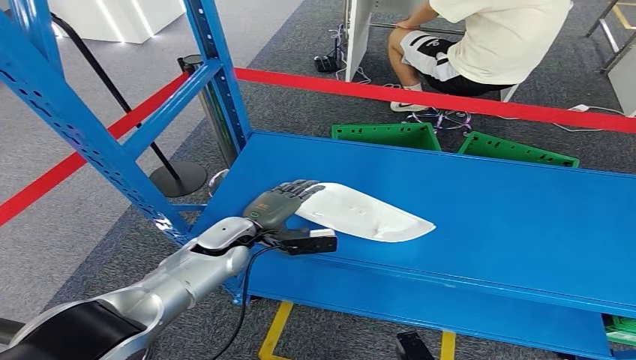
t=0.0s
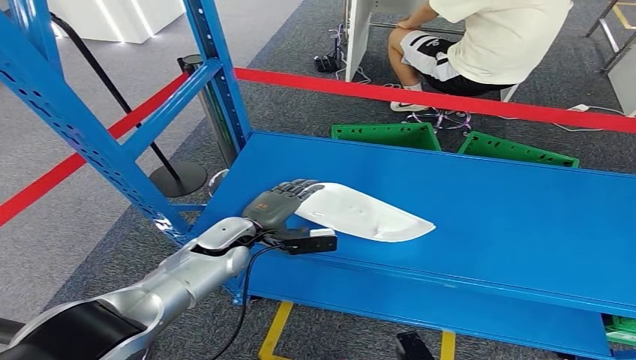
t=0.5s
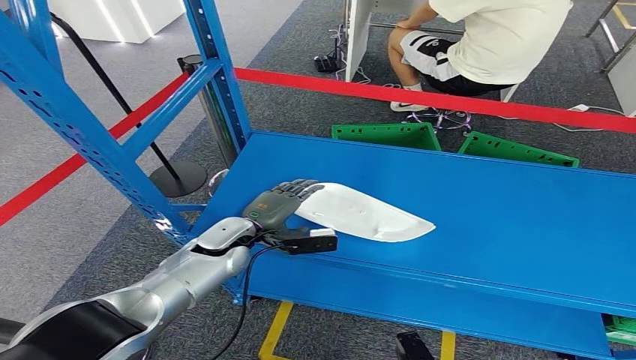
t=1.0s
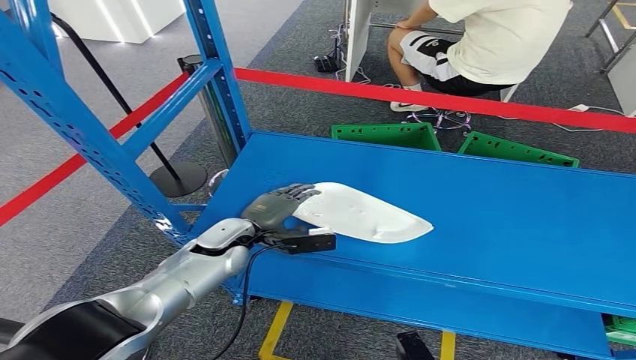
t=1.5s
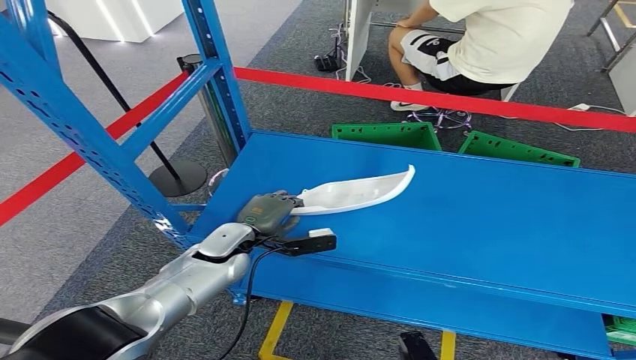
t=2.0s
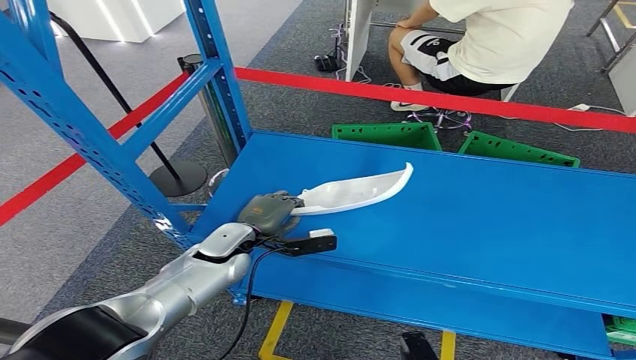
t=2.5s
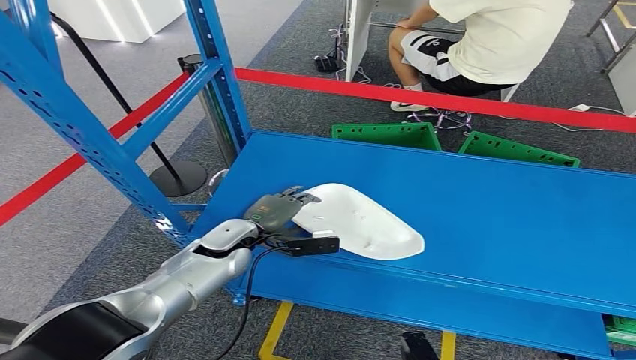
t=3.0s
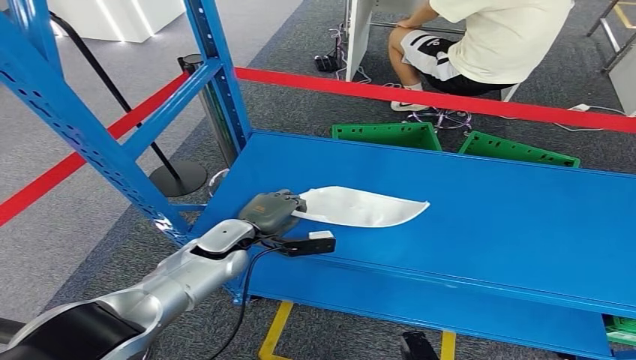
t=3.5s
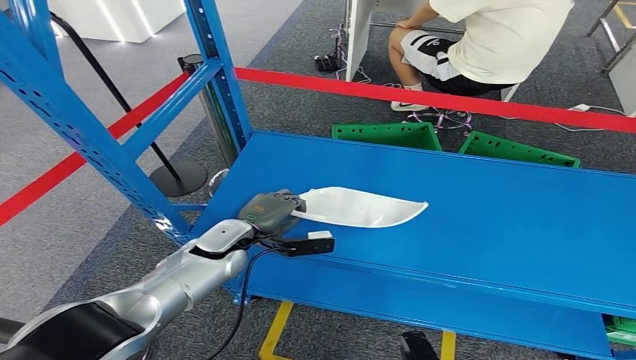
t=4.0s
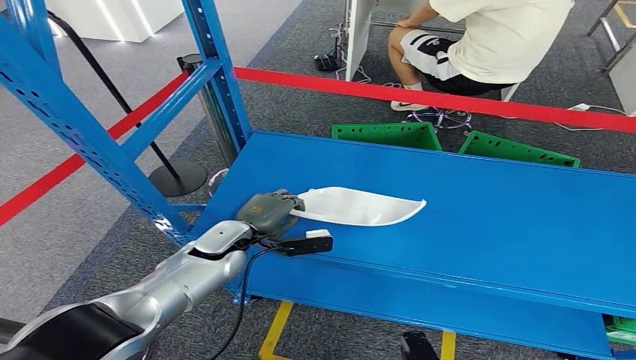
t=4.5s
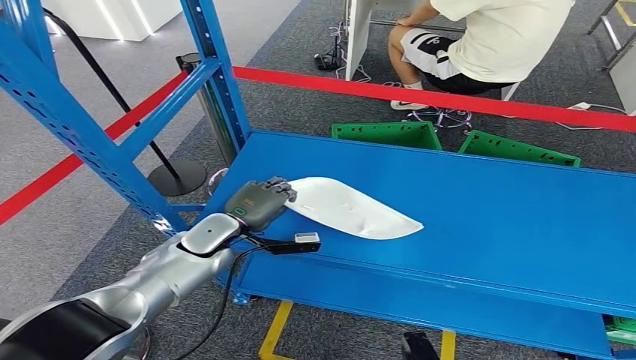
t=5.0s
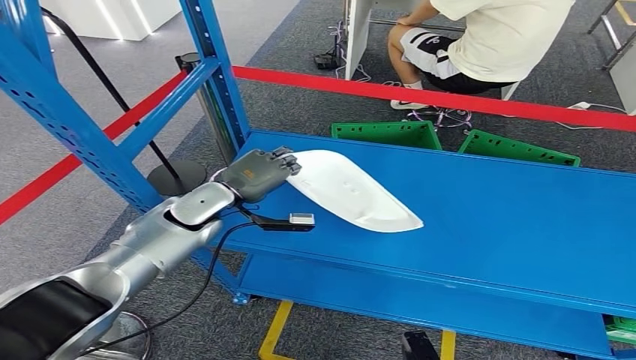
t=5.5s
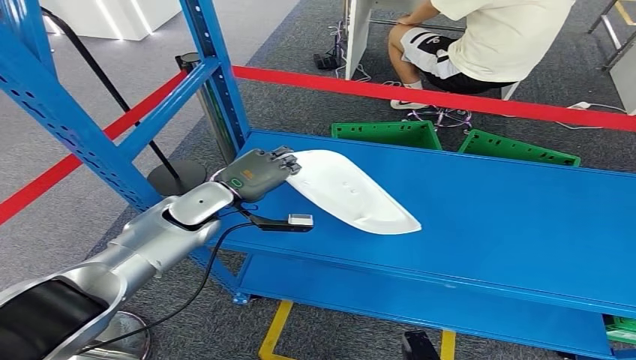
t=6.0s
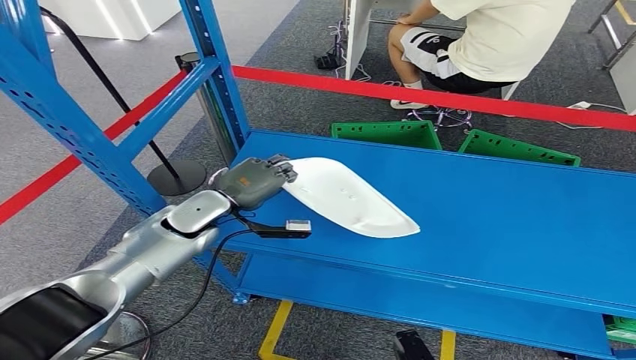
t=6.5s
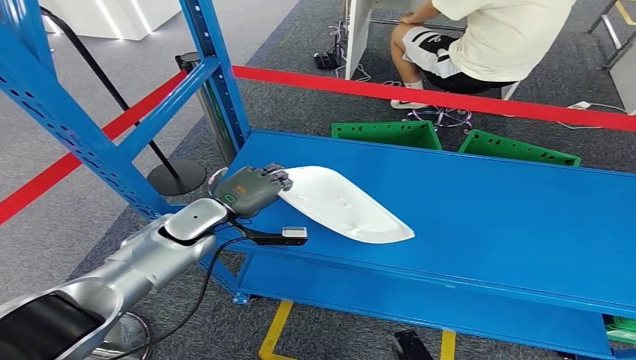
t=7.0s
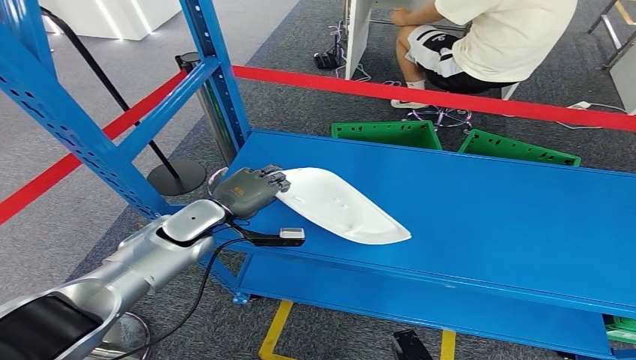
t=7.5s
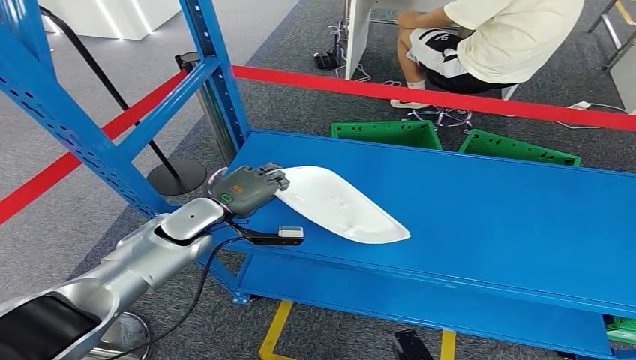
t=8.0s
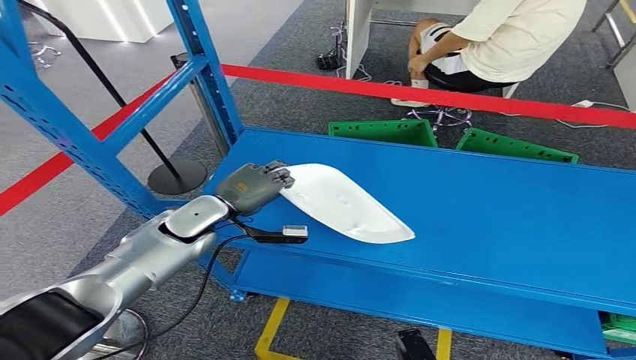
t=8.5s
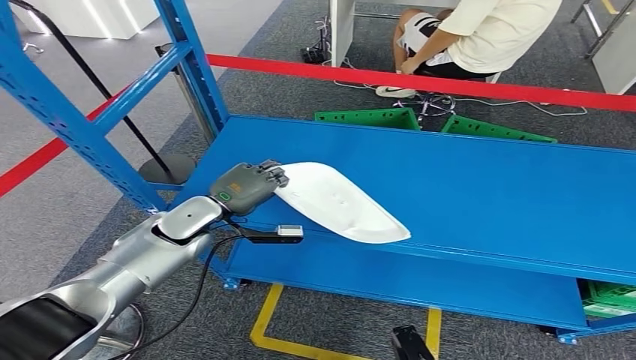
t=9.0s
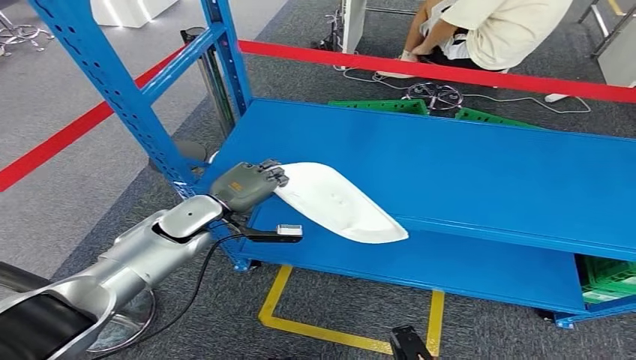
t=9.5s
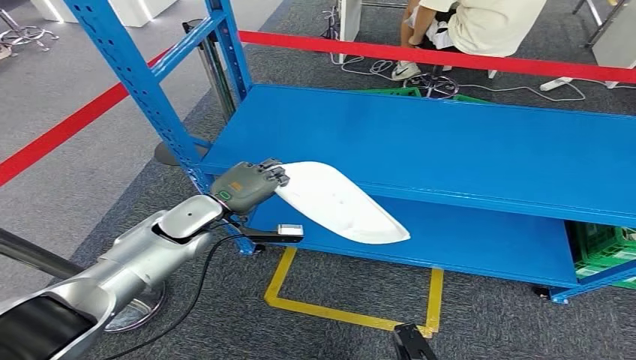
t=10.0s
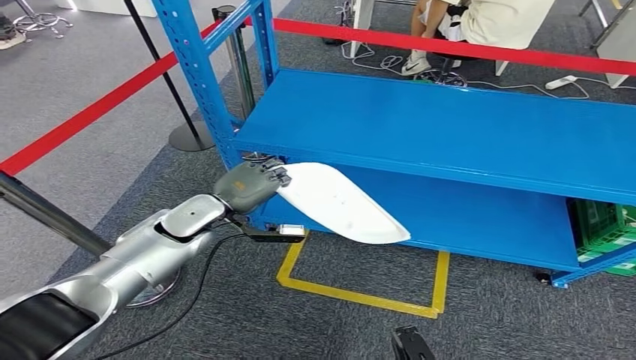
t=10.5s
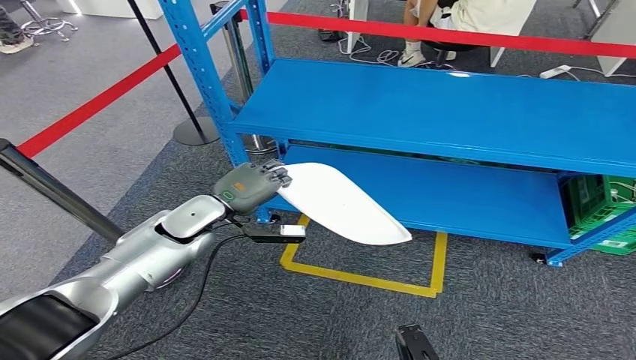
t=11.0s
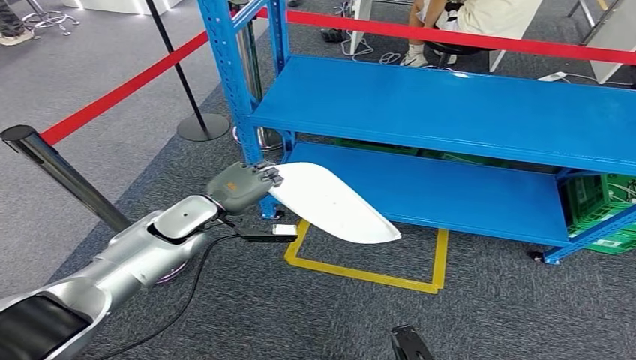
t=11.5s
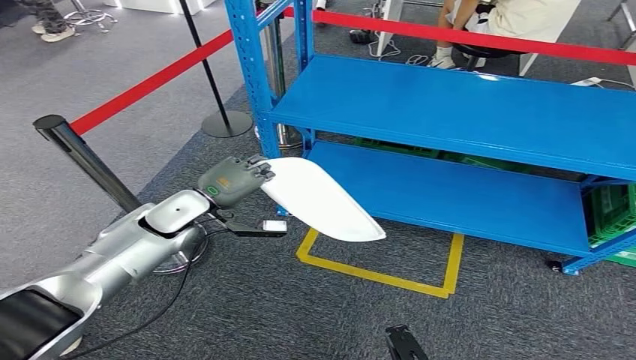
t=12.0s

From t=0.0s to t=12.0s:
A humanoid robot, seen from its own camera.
From t=0.0s to t=4.0s: The hands make only small movements.
From t=4.0s to t=6.0s: The left hand goes roughly 5 cm upward.
From t=6.0s to t=8.0s: There are only small adjustments of the hands.

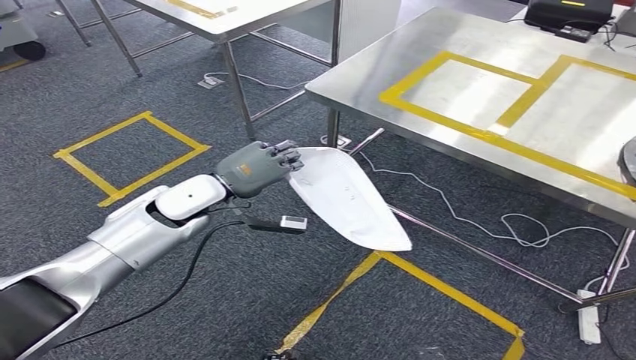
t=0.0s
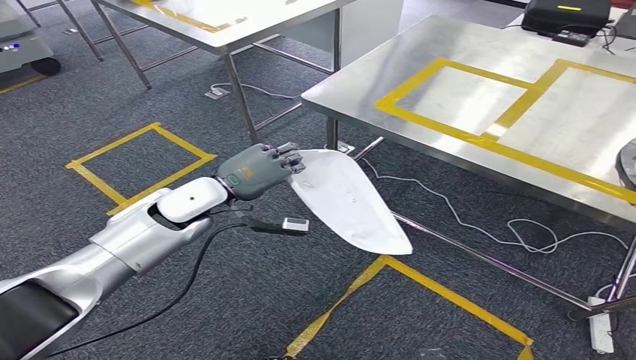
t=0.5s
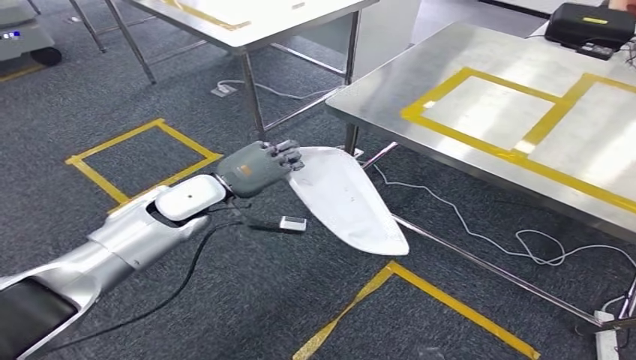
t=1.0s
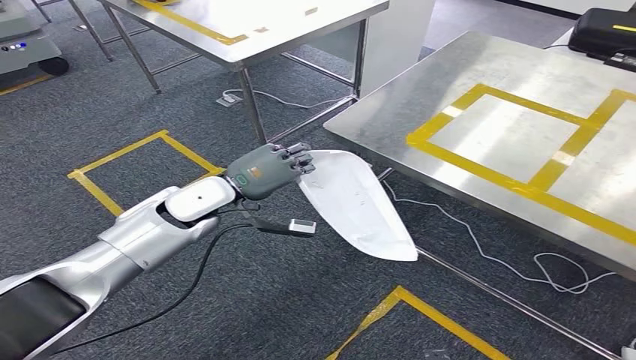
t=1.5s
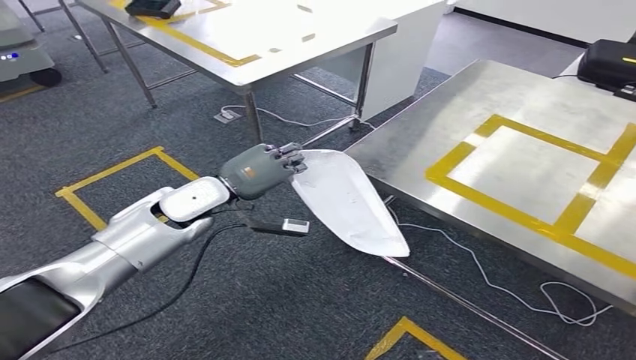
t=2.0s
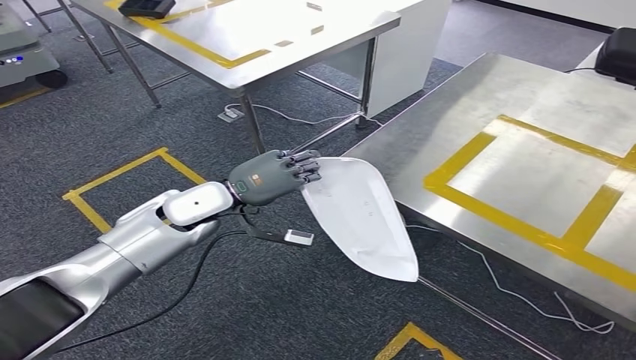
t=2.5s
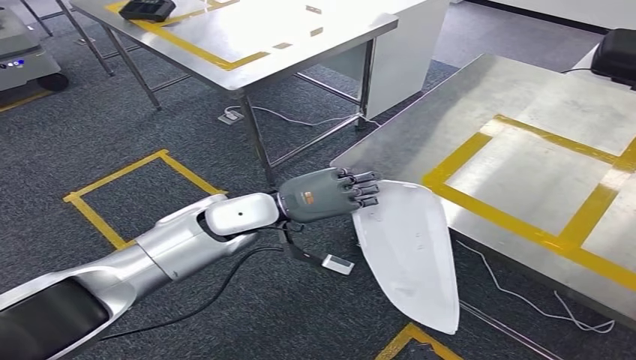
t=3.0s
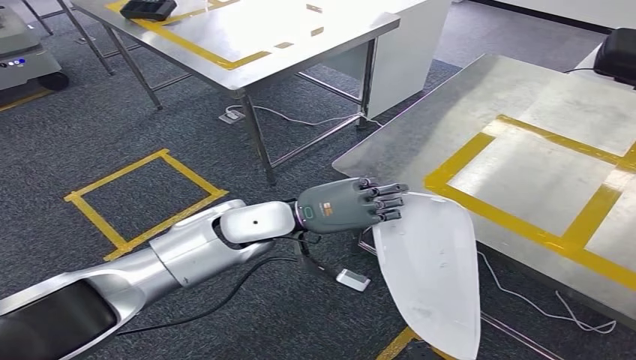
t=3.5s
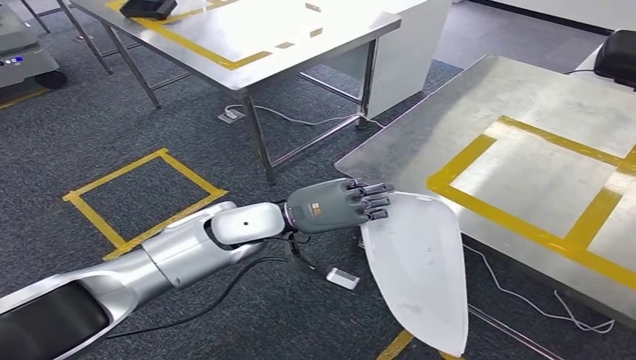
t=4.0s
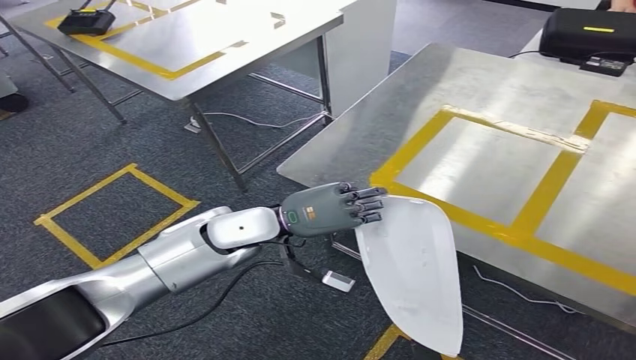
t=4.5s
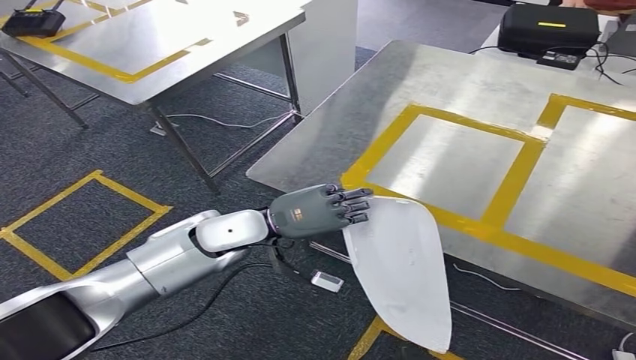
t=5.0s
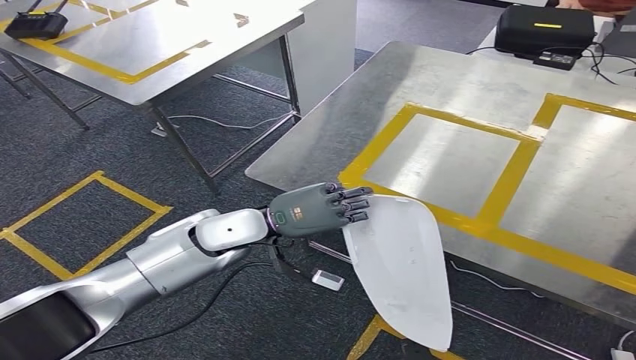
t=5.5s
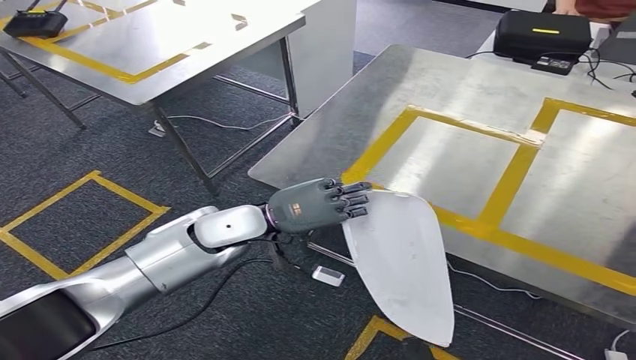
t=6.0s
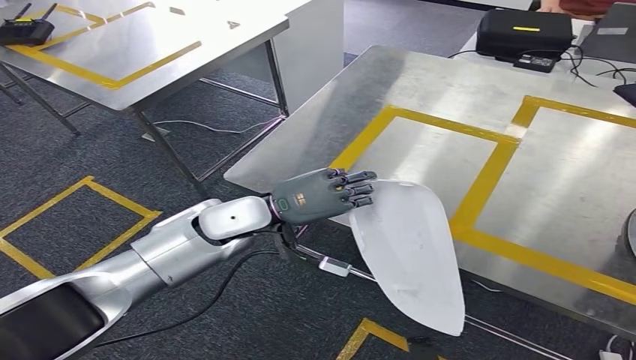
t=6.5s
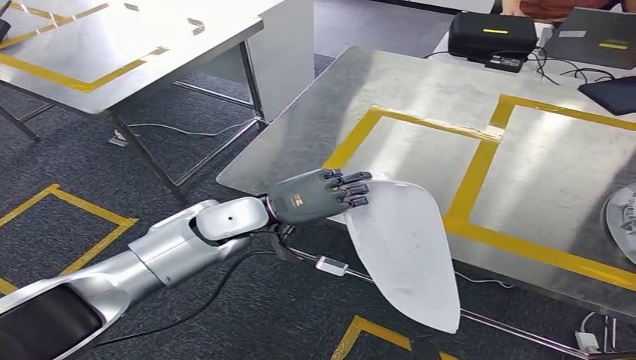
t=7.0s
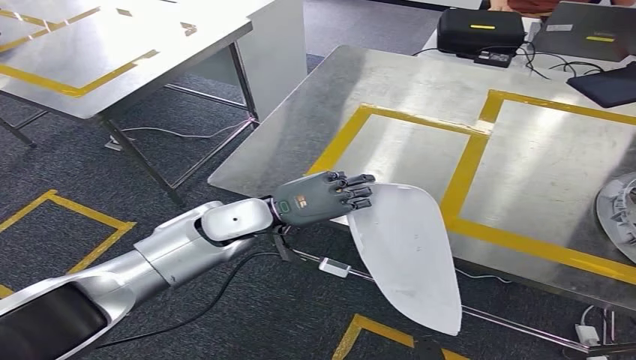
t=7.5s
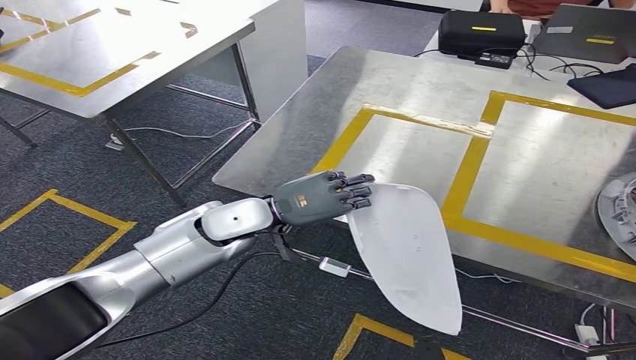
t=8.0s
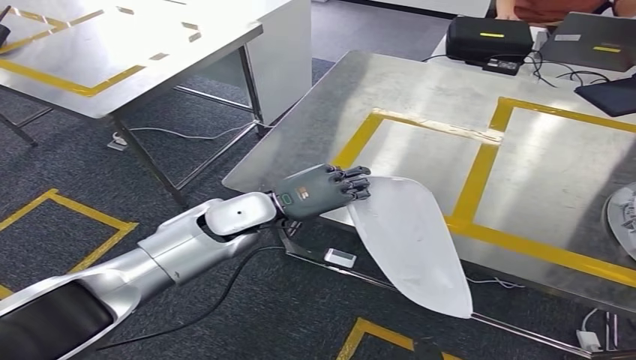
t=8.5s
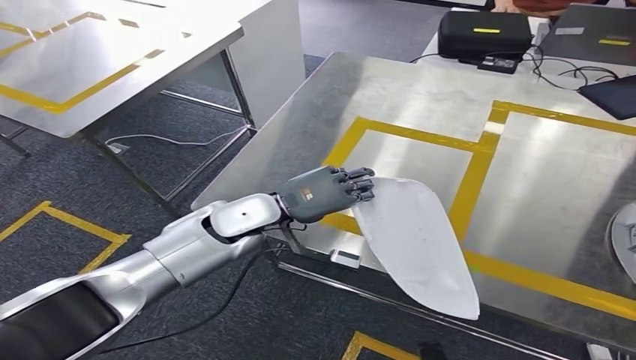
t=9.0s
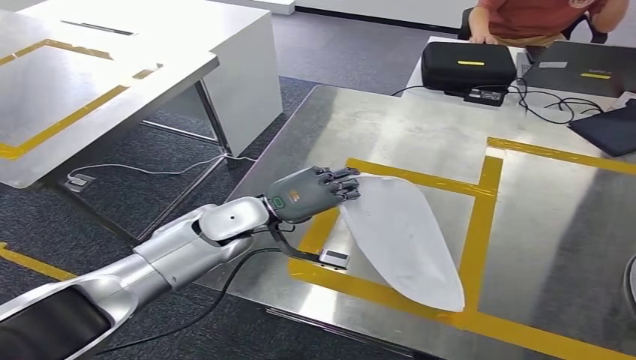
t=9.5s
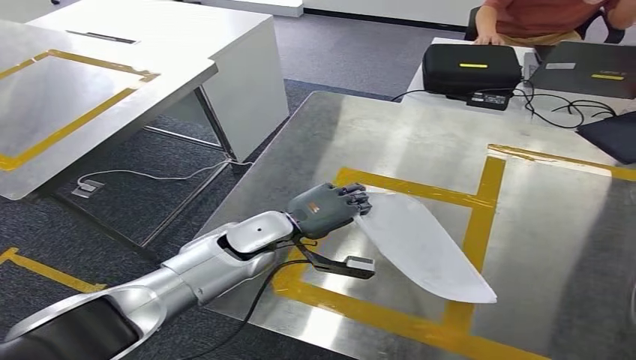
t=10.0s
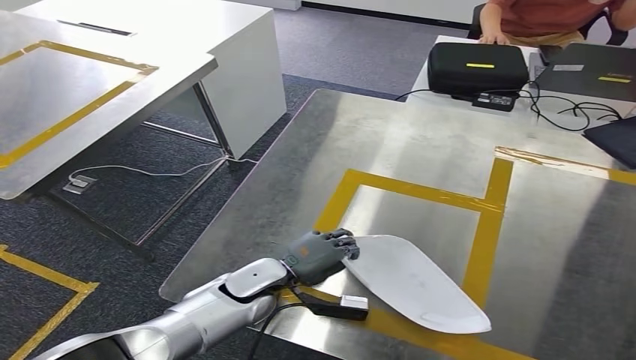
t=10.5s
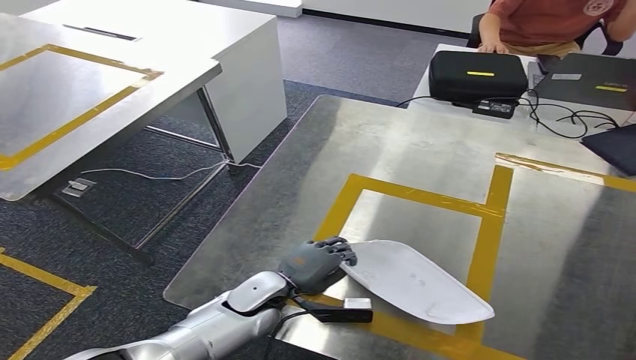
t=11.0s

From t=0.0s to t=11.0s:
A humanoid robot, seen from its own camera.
Step, from t=0.0s to t=4.5s: Move the small parts to the workbench.
